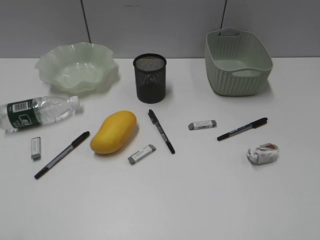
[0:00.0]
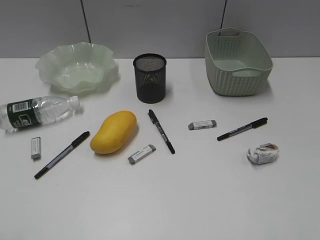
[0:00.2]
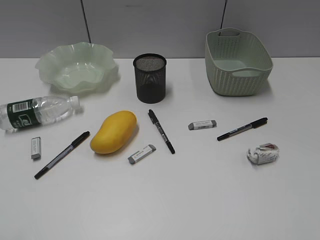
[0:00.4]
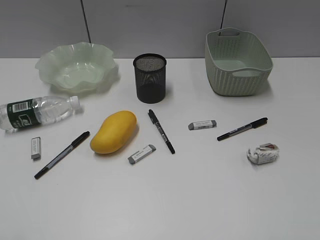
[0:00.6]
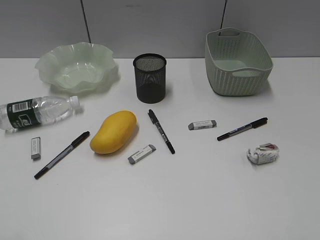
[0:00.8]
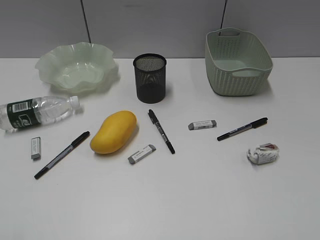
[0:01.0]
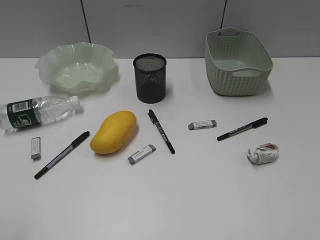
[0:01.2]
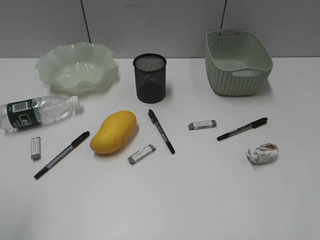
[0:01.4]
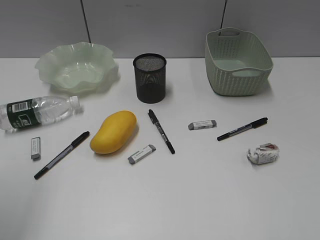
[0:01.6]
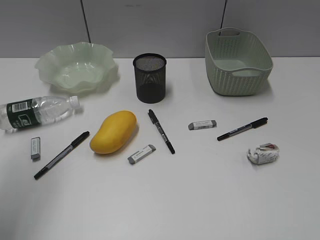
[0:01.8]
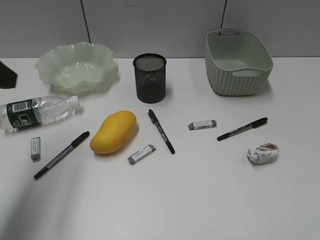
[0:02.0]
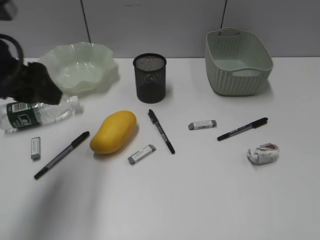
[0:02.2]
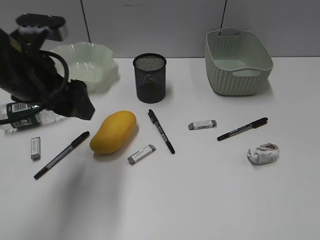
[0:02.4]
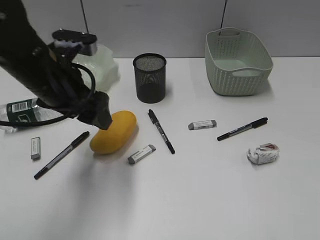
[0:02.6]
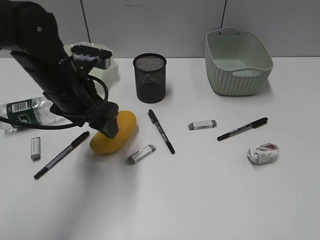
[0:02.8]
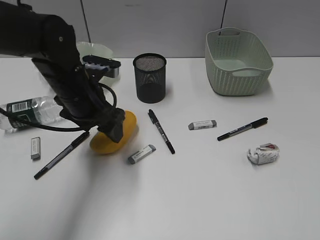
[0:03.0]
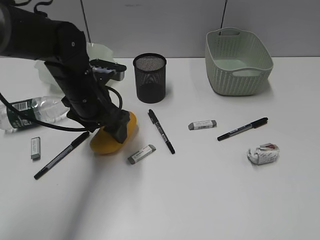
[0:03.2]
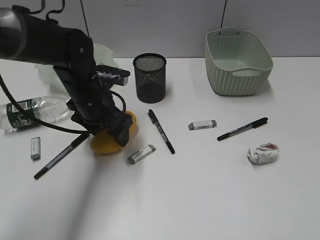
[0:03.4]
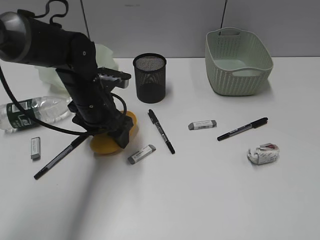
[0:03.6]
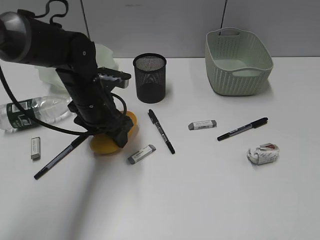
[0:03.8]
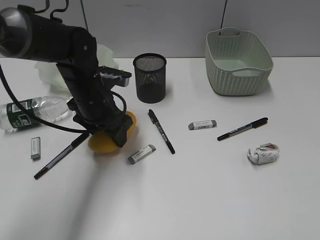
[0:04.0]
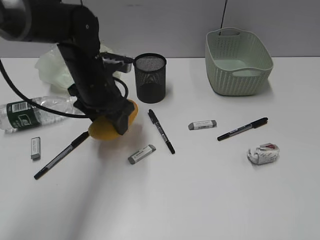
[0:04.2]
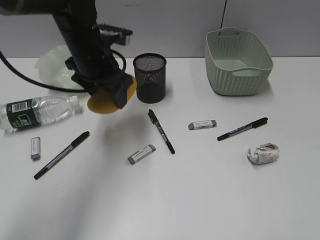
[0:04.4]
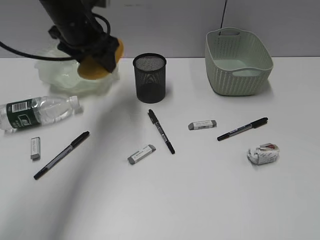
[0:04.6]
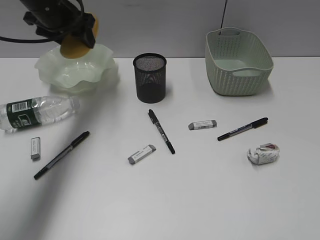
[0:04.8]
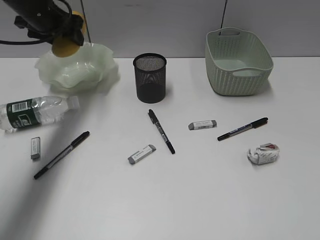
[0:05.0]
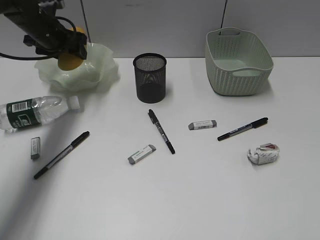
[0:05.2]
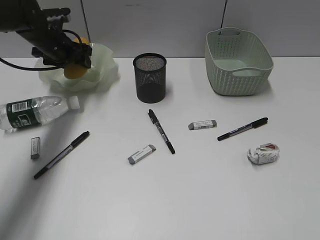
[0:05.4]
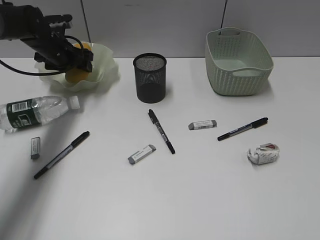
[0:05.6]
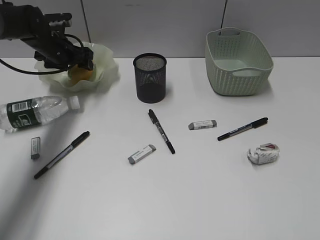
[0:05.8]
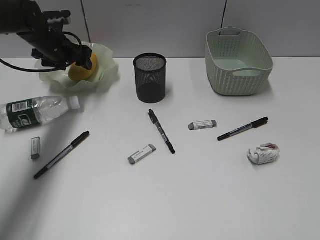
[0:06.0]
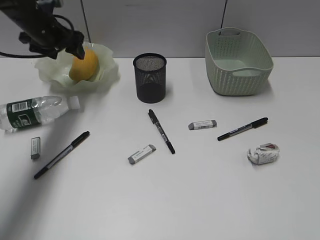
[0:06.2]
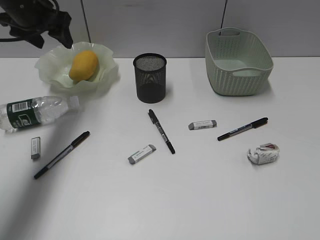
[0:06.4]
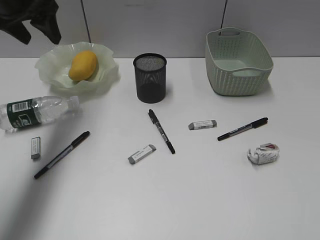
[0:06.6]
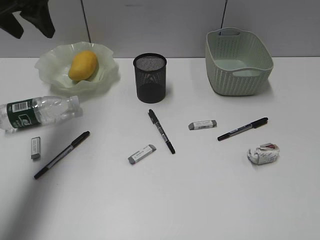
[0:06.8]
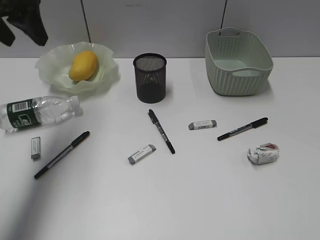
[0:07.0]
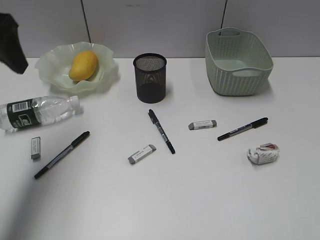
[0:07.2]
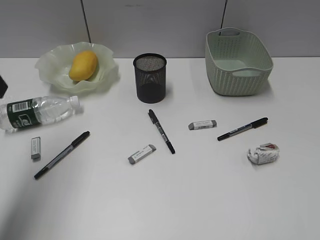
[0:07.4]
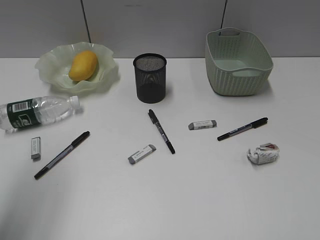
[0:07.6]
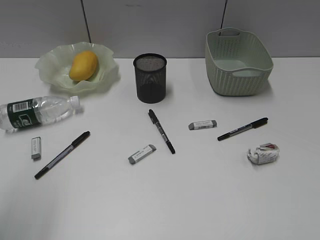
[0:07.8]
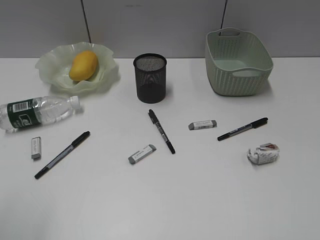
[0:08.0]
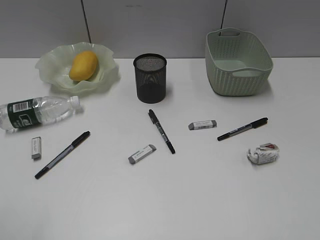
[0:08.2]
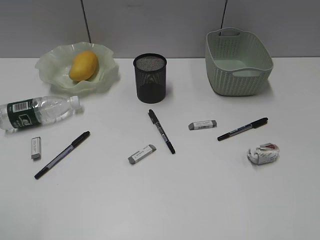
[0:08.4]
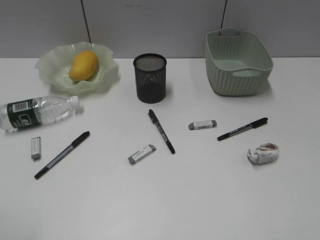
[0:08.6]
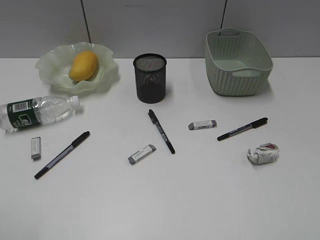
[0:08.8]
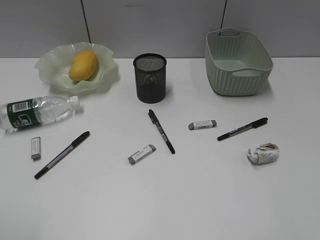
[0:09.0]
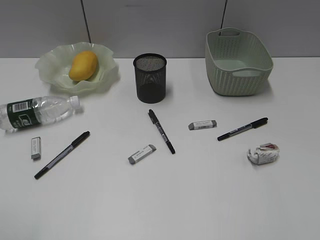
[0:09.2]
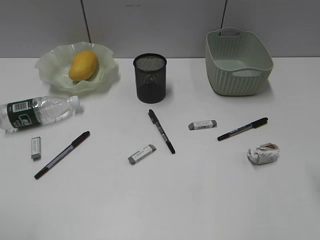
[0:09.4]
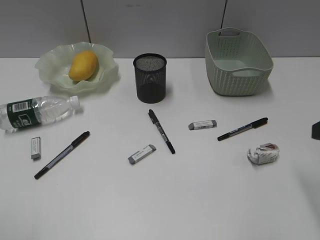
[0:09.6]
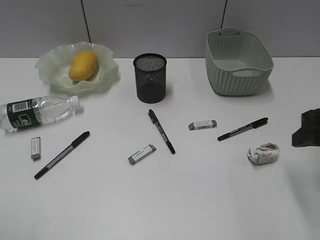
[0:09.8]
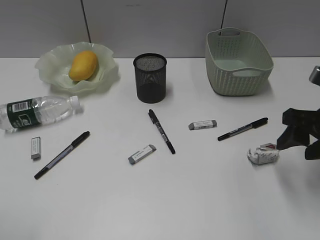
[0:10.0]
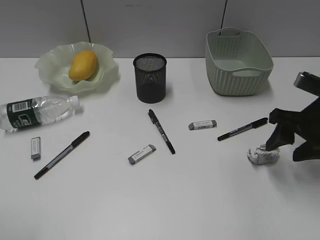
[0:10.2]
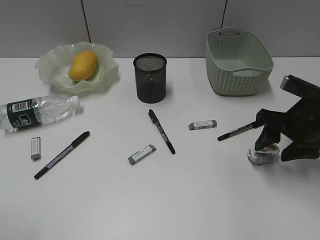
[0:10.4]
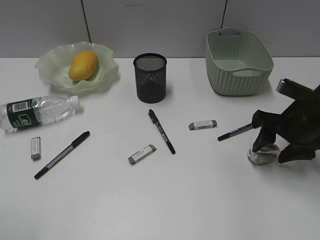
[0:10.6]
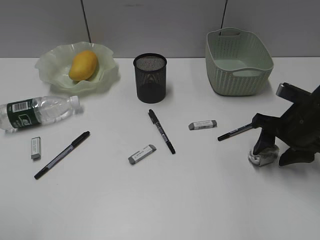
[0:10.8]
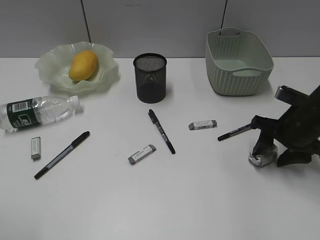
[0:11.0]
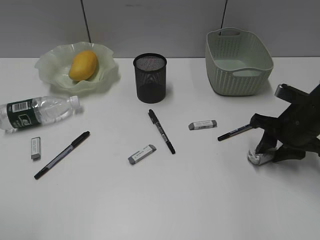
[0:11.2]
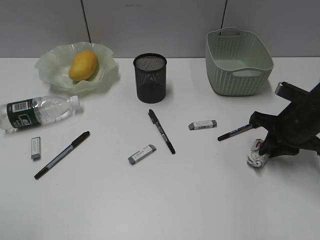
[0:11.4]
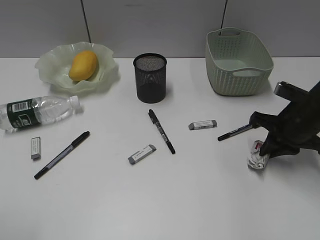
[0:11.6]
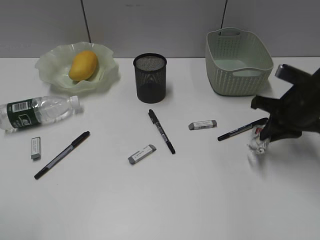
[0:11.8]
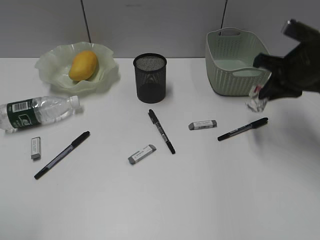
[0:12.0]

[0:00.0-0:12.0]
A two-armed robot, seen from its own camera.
Step, 0:01.0 to 0:03.8: Grasp the mango with left gripper.
Step, 0:04.0 to 0:06.2: Place the mango in the plate with left gripper.
Step, 0:06.4 to 0:11.4: Grasp the waste paper with right gripper.
0:01.6 to 0:03.0: The left gripper moves forward, to the right and downward, some 30 cm.
0:03.0 to 0:04.4: The left gripper travels forward by roughly 5 cm.
0:04.4 to 0:06.0: The left gripper moves forward and to the left, about 20 cm.
0:06.0 to 0:07.6: The left gripper shifts approximately 35 cm backward and upward.
0:07.6 to 0:09.0: The left gripper heads backward, covering roughly 15 cm.
0:09.0 to 0:10.4: The right gripper heads forward and downward, covering approximately 30 cm.
0:10.4 to 0:12.0: The right gripper shifts roughly 10 cm forward and upward, and closes.

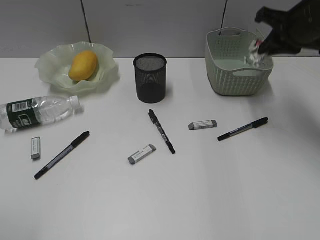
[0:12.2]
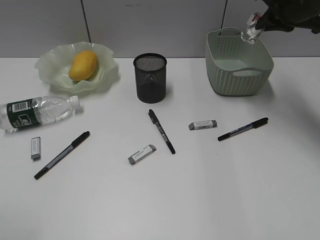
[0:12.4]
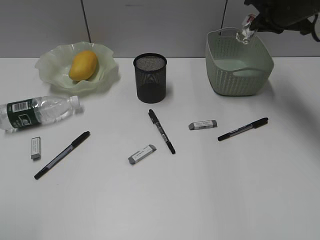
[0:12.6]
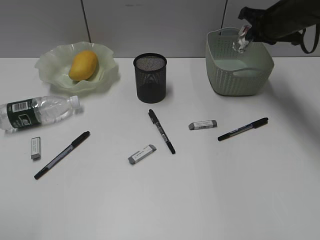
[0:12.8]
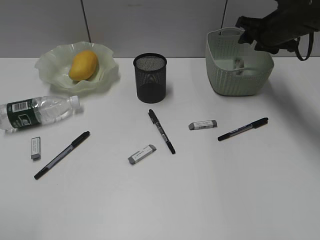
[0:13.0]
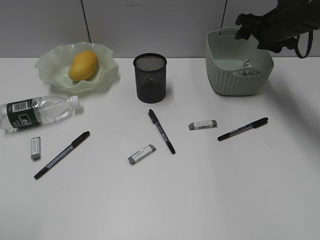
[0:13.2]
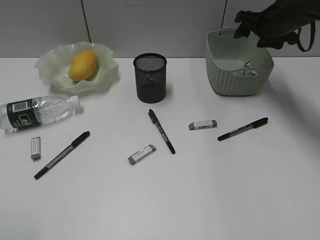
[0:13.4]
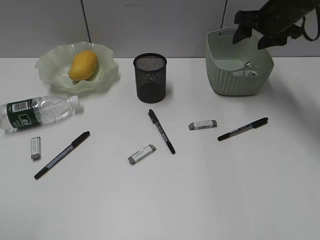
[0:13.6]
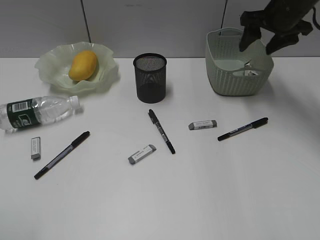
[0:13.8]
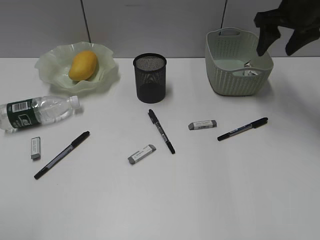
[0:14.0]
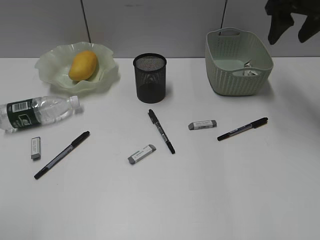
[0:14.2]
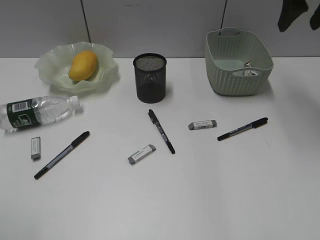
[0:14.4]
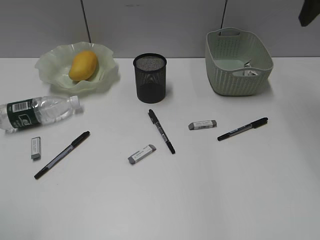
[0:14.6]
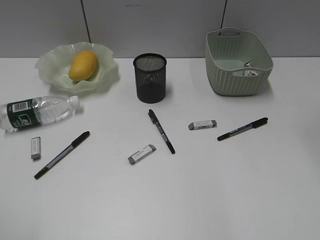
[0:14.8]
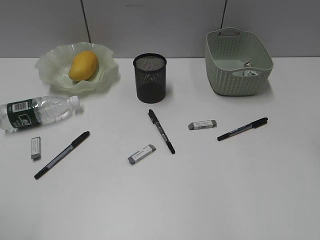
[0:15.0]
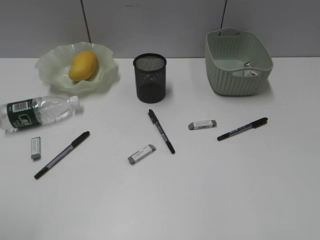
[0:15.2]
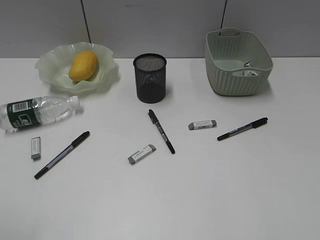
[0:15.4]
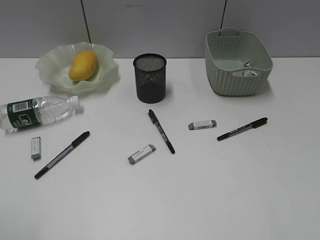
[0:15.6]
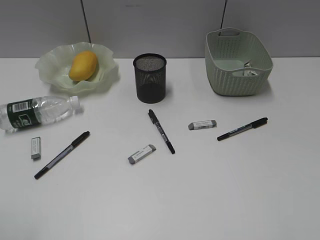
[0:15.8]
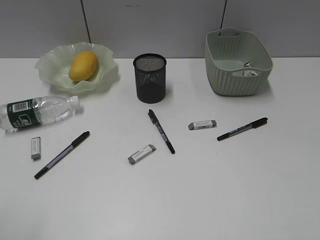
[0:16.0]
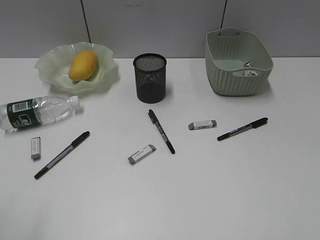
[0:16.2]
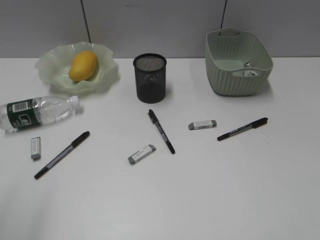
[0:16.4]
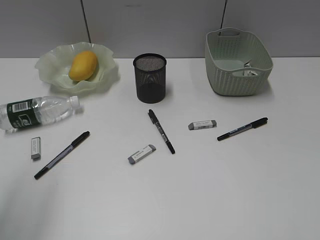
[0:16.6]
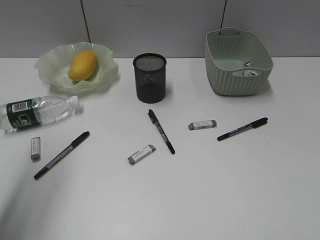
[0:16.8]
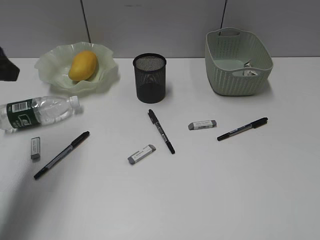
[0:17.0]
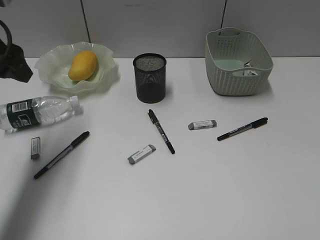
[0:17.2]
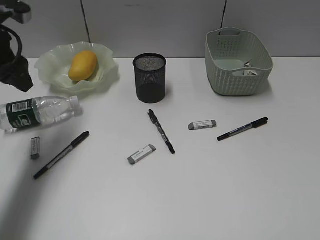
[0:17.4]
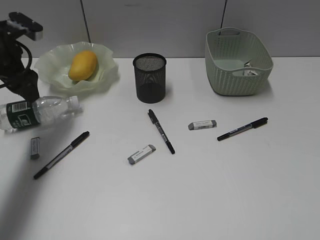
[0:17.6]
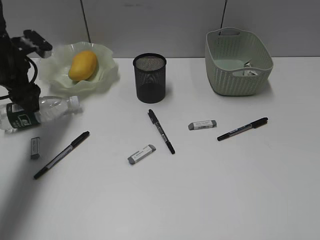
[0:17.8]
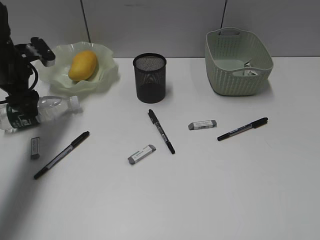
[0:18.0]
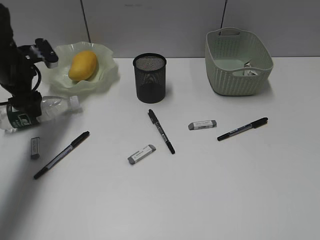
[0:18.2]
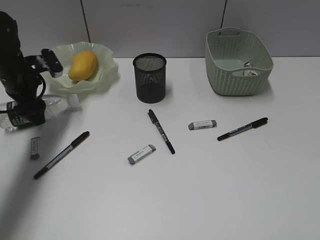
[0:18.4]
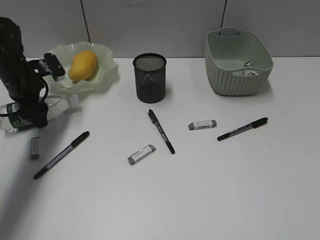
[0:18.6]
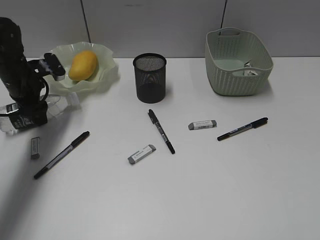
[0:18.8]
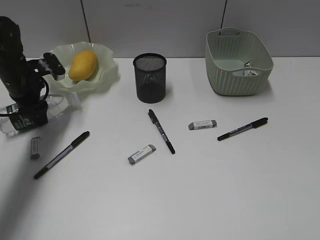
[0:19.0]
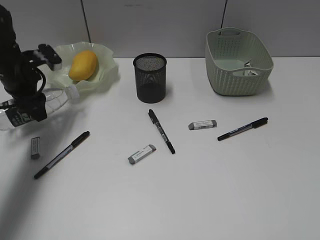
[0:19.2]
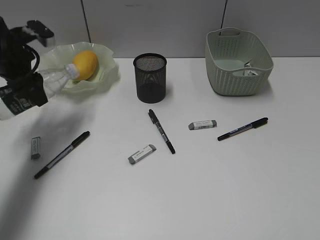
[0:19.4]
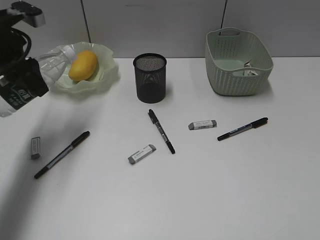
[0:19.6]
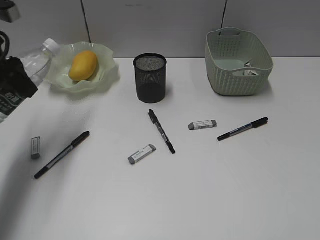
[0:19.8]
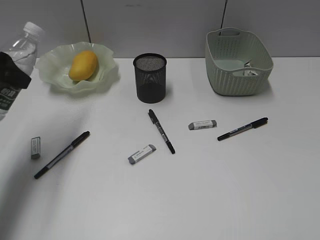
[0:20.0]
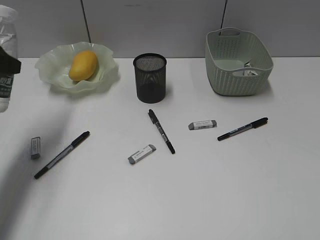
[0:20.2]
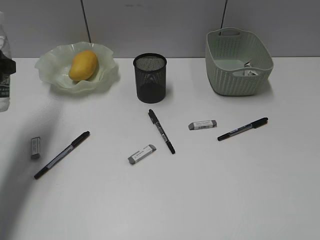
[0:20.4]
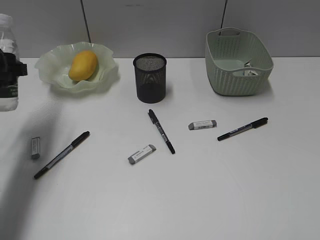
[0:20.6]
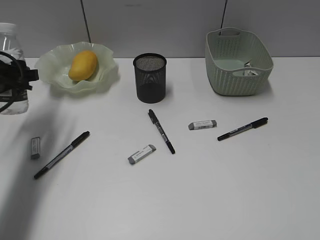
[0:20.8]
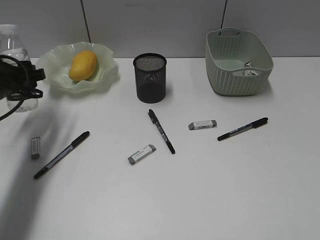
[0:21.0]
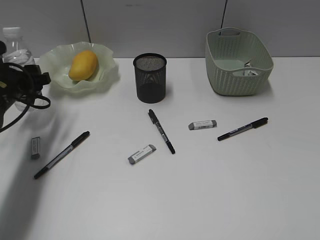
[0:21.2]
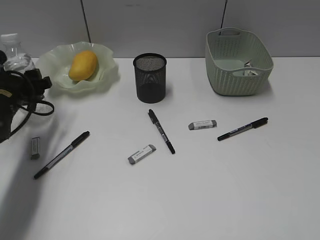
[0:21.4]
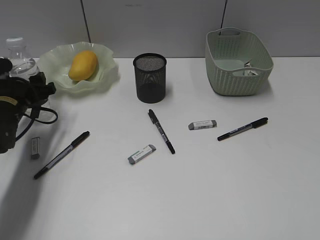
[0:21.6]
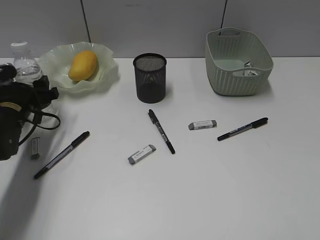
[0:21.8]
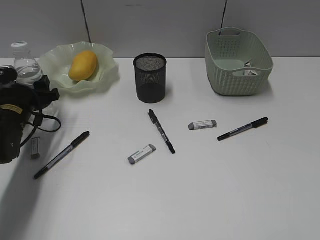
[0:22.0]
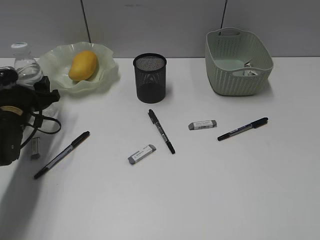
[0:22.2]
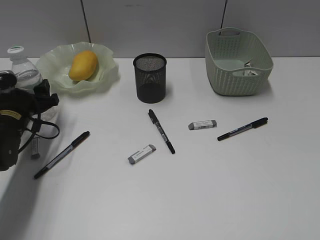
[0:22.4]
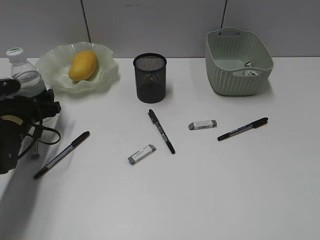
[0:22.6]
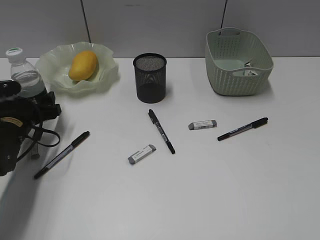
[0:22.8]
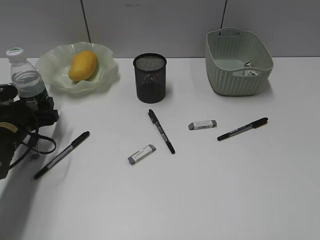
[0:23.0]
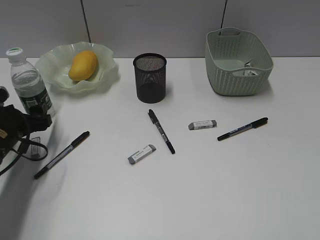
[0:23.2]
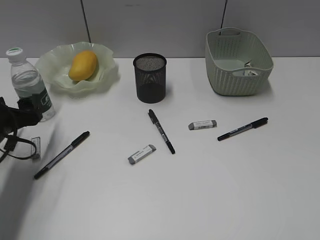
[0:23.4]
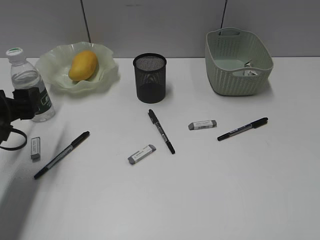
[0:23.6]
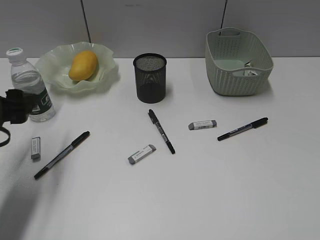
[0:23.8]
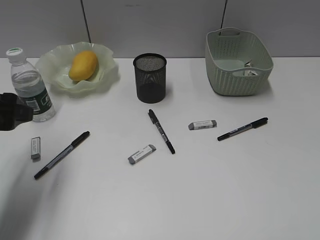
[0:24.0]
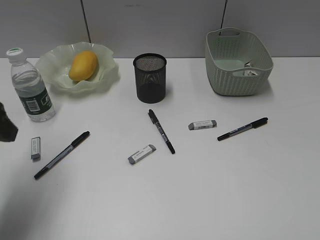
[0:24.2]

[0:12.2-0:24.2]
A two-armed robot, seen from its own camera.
Step, 0:12.2 to 0:13.2: Place the waste paper in the basket with right gripper.
Step, 0:13.4 to 0:18.8: Grasp the bottle with left gripper.
Step, 0:19.0 to 0:23.0: Stand the bottle with left gripper.
0:12.2 to 0:13.8: The right gripper shifts some 10 cm forward, and opens.
0:13.8 to 0:15.2: The right gripper goes approximately 35 cm backward and upward.
0:15.2 to 0:16.6: The left gripper moves forward, approximately 10 cm.
0:16.6 to 0:18.2: The left gripper travels forward and downward by approximately 35 cm.
0:18.2 to 0:19.8: The left gripper travels upward and backward by approximately 10 cm.
0:19.8 to 0:21.2: The left gripper moves downward, about 10 cm.
0:21.2 to 0:22.6: The left gripper shifts about 10 cm downward.
0:22.6 to 0:24.2: The left gripper is displaced upward and backward by roughly 20 cm.
